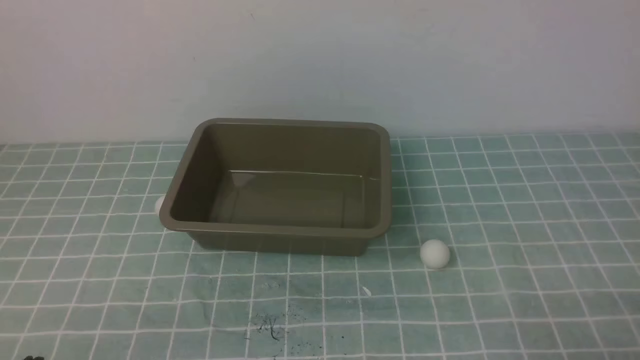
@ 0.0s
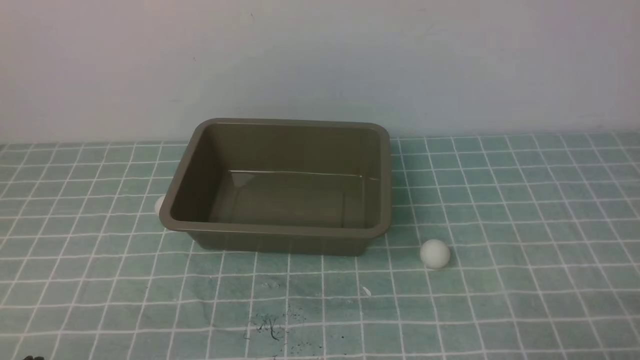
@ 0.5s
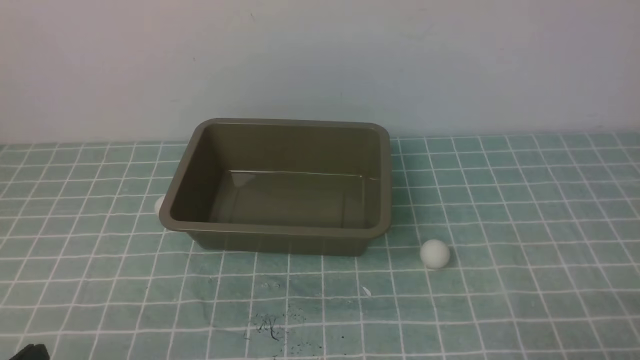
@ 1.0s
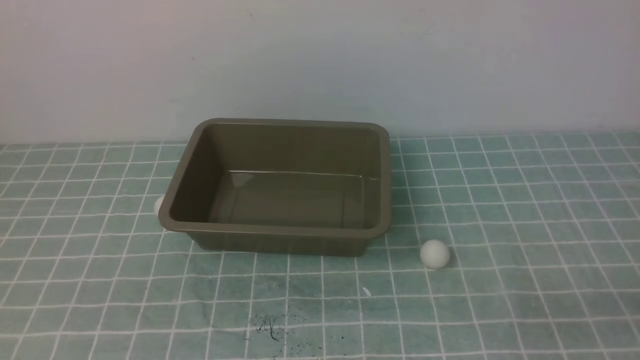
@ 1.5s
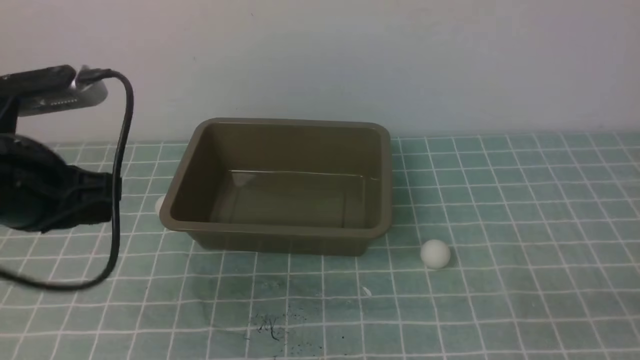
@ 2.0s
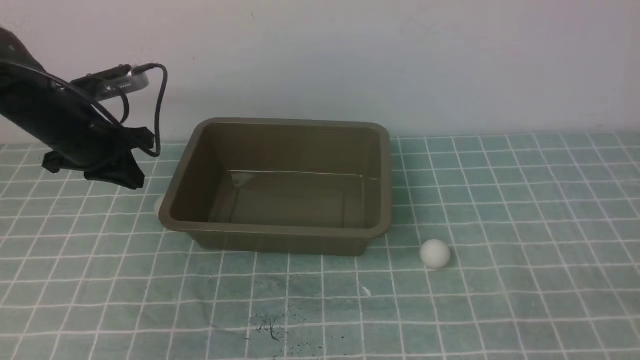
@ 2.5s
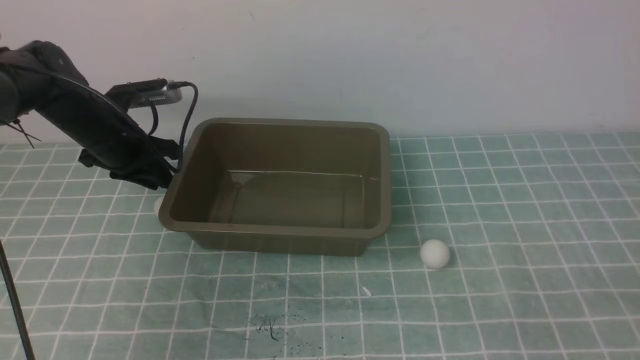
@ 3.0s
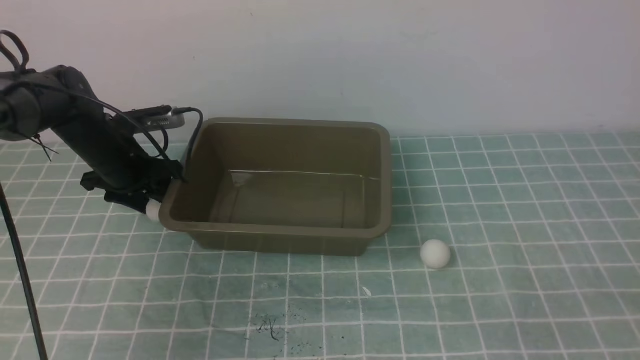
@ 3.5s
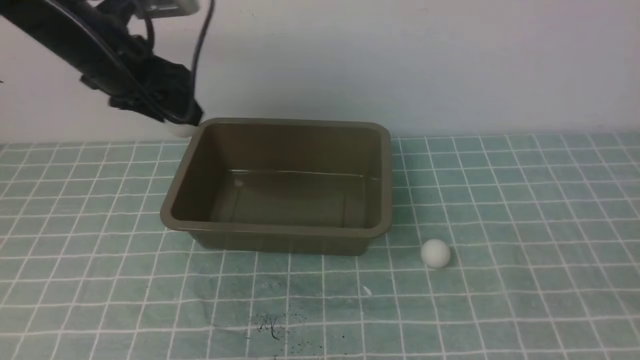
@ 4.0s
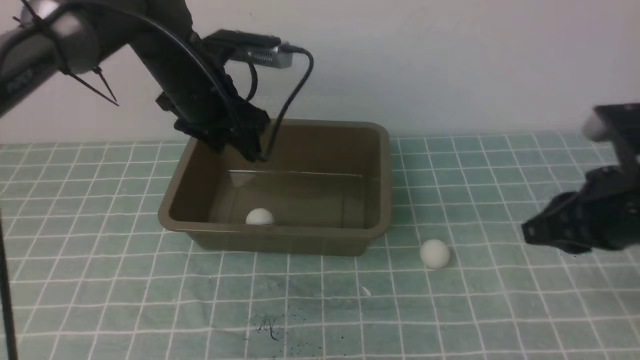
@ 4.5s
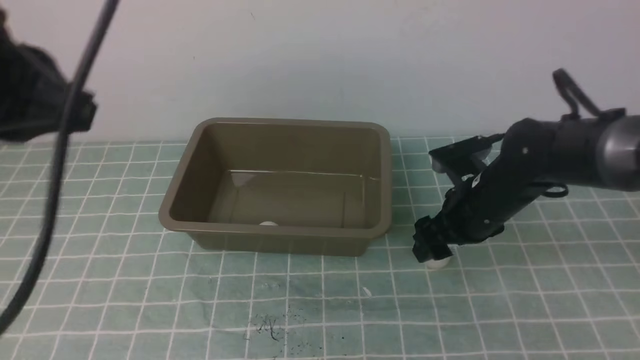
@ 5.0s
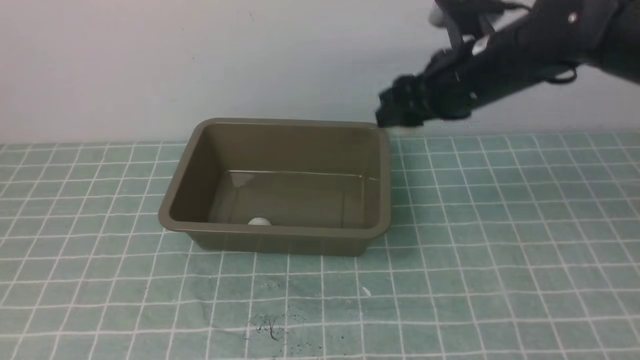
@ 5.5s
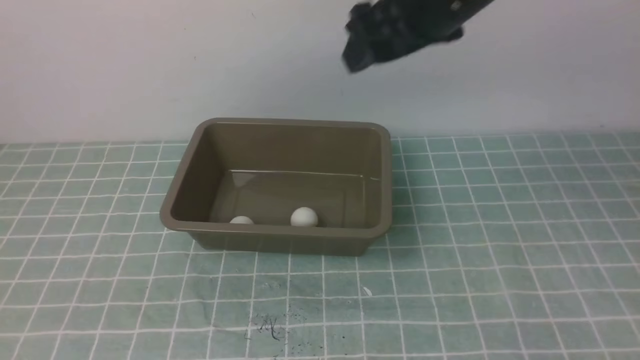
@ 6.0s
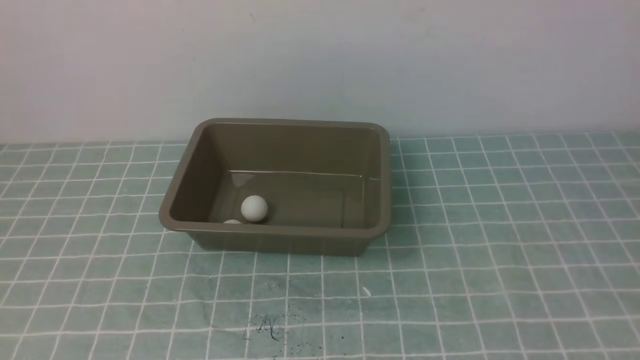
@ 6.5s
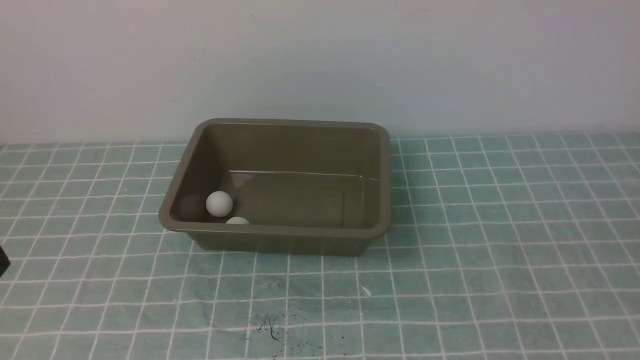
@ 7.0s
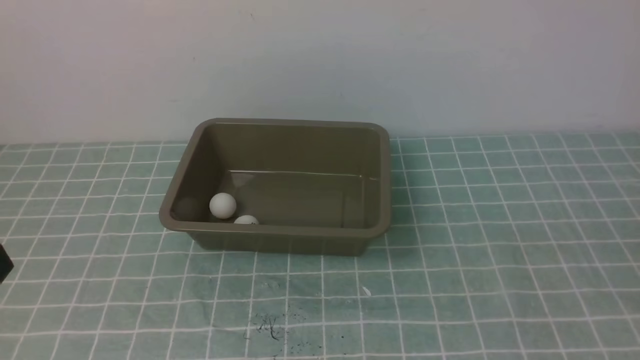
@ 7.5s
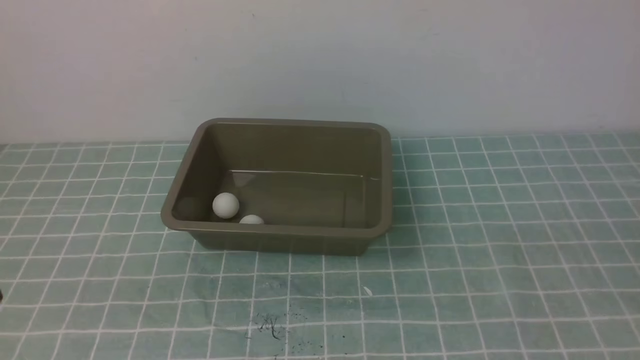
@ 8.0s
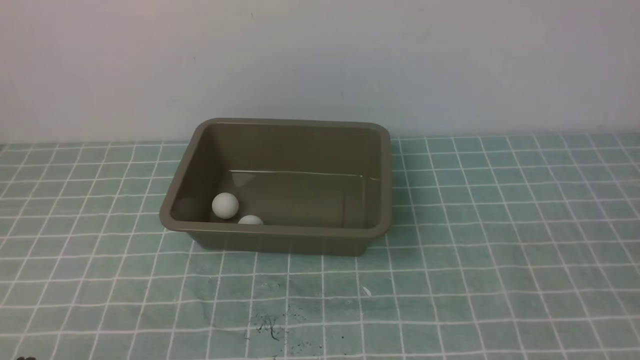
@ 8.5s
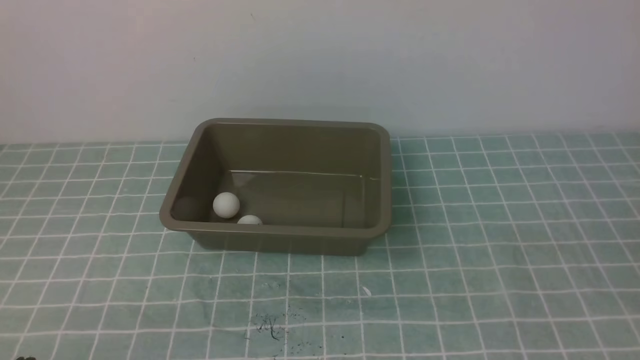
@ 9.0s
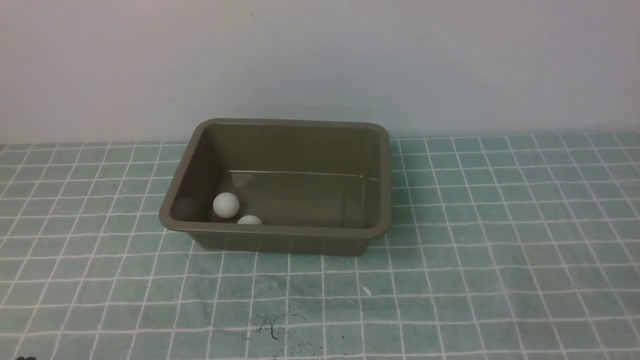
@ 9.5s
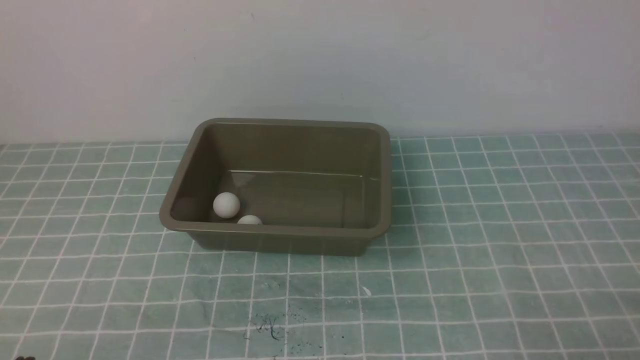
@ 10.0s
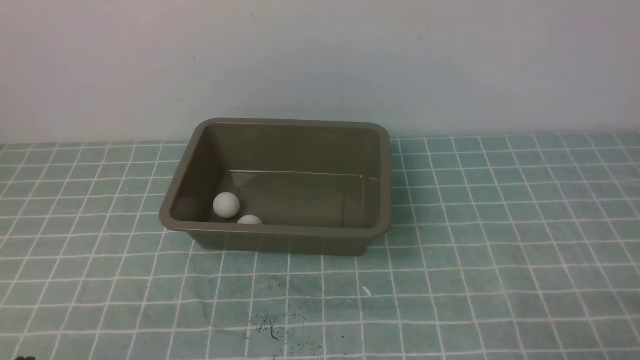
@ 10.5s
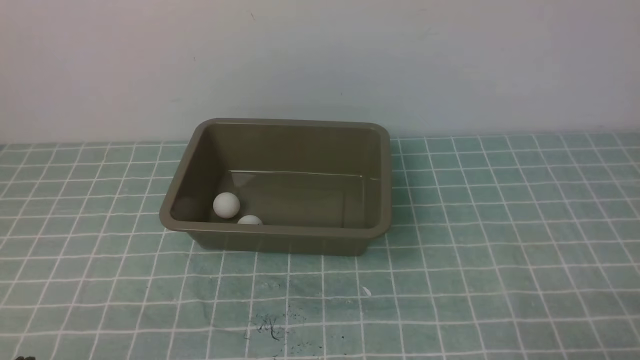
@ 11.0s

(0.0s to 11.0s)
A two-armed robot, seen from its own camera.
Step, 0.0s - 3.5s: use the left arm to clamp the table tennis ball closest to it.
0.0s - 2.0s: The left gripper moves forward and upward, roughly 25 cm; the right gripper travels upward by about 5 cm.
2.0s - 3.5s: The left gripper is displaced forward and downward by some 25 cm, and opens up.
3.5s - 5.5s: The right gripper travels forward and to the left by about 40 cm, and opens, while the left gripper is displaced backward and upward by about 50 cm, and closes its fingers.
5.5s - 7.5s: The left gripper travels downward by about 5 cm; the right gripper is displaced backward and to the right by approximately 40 cm, and closes.

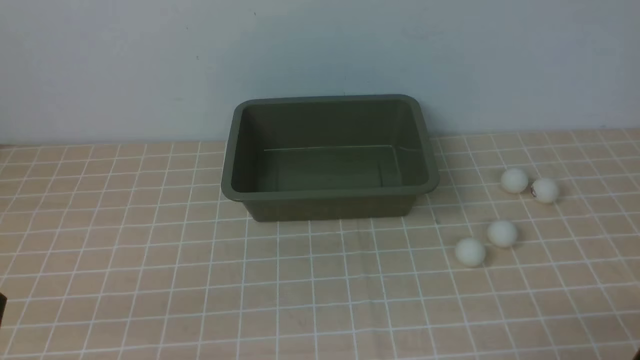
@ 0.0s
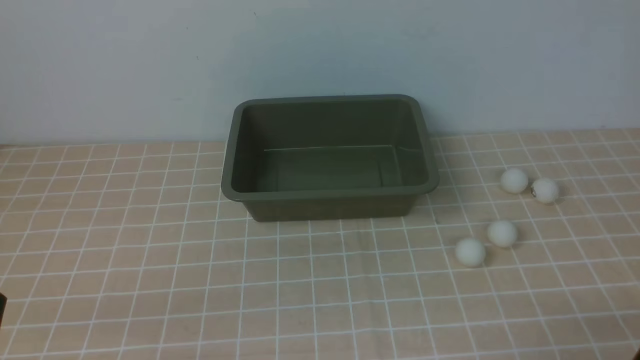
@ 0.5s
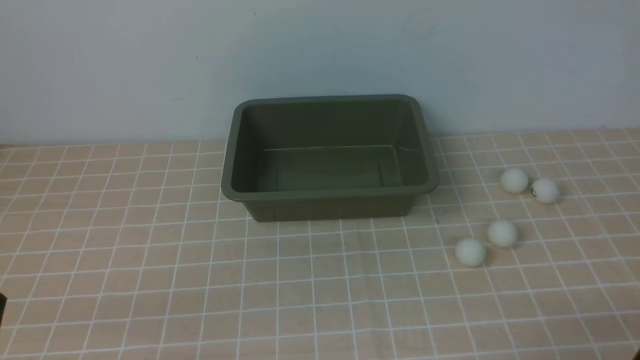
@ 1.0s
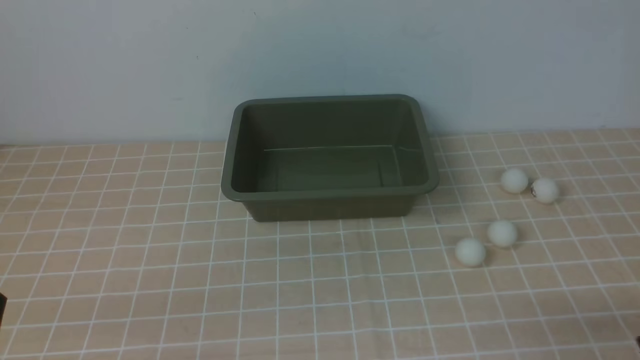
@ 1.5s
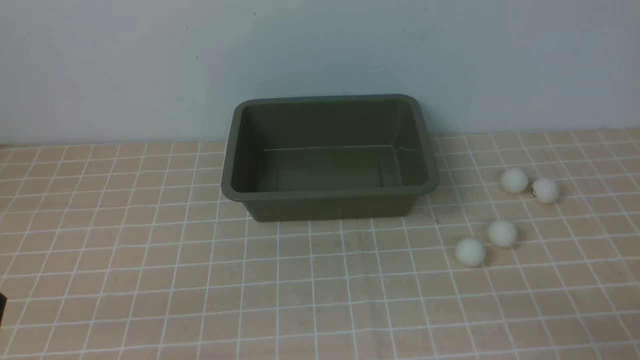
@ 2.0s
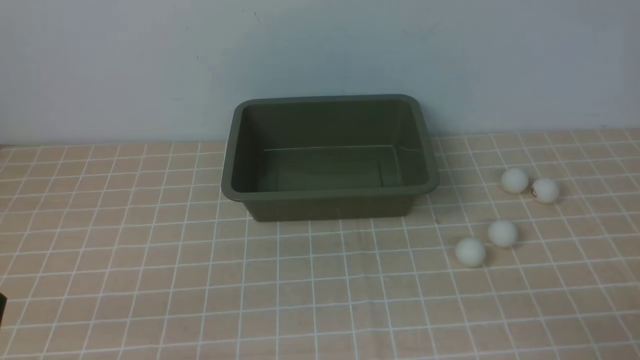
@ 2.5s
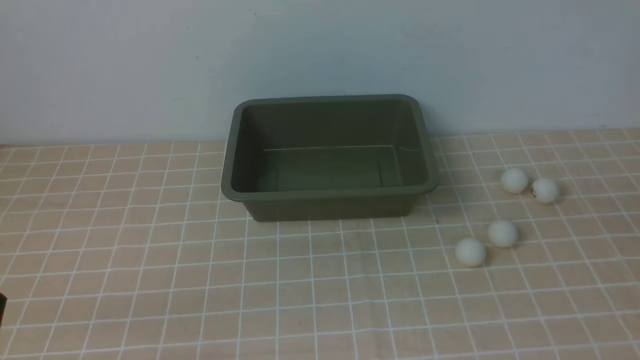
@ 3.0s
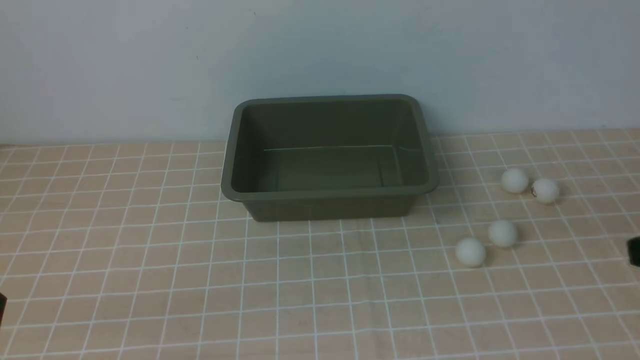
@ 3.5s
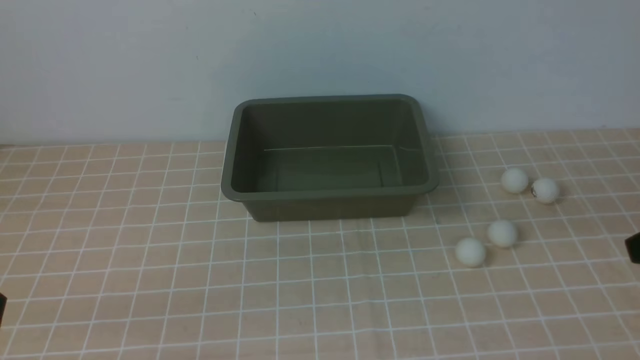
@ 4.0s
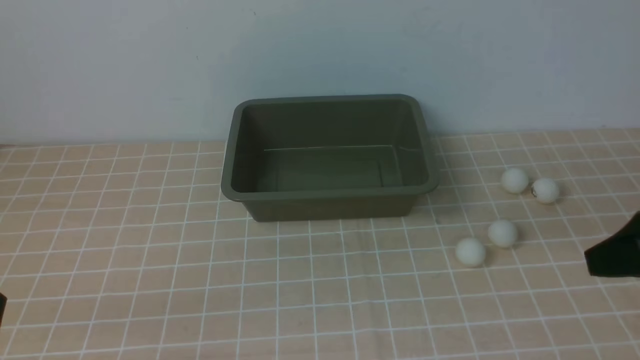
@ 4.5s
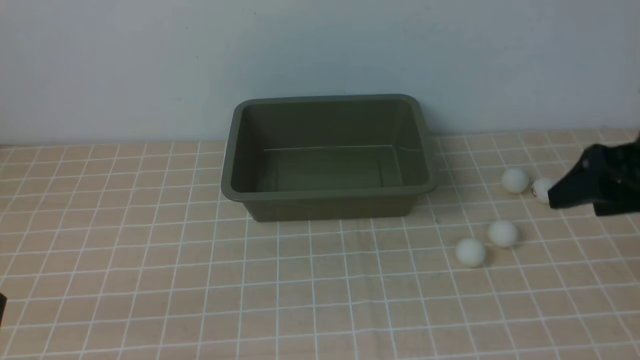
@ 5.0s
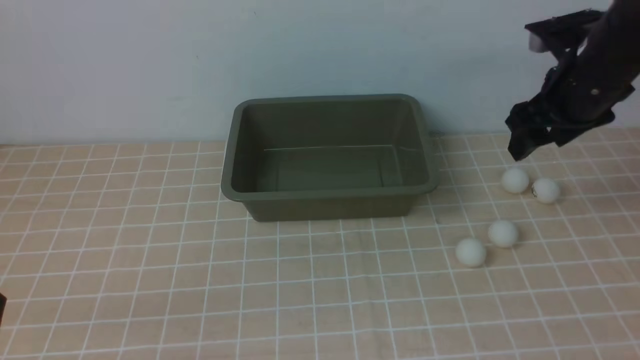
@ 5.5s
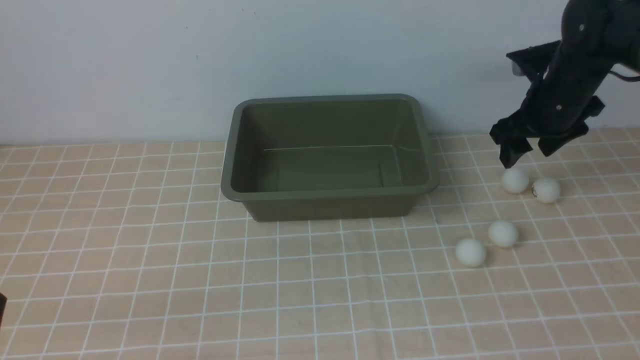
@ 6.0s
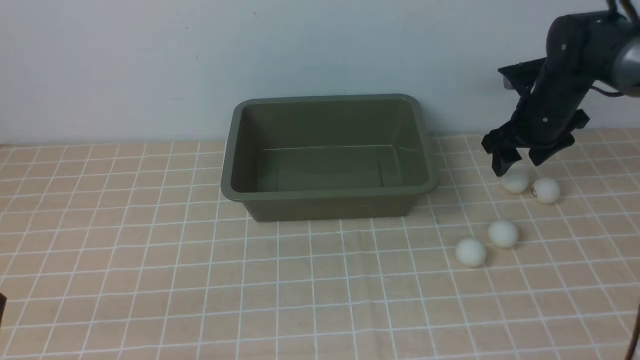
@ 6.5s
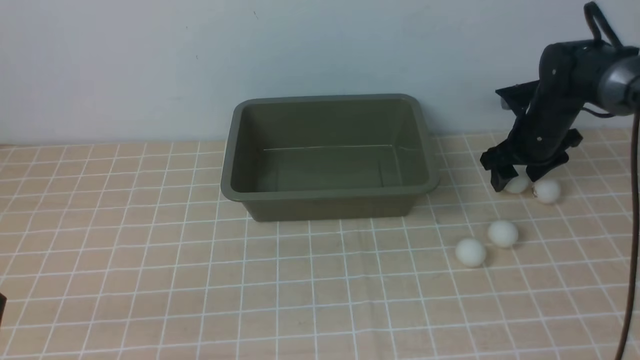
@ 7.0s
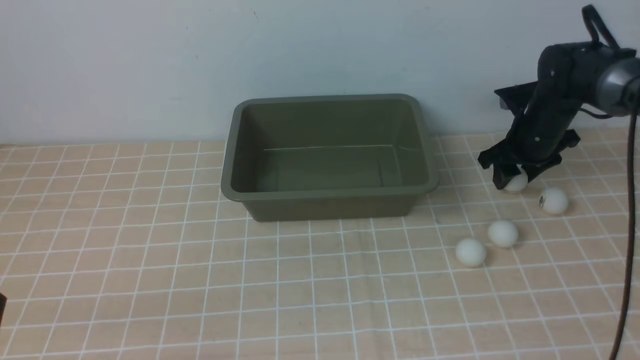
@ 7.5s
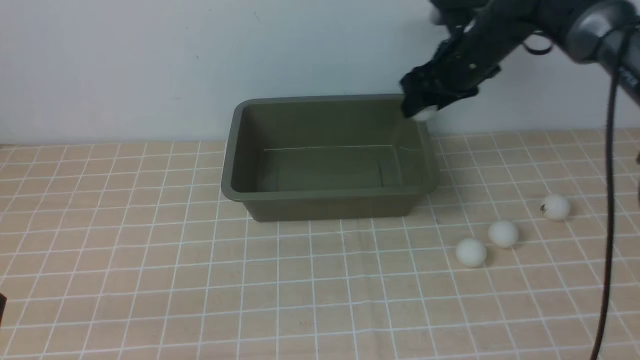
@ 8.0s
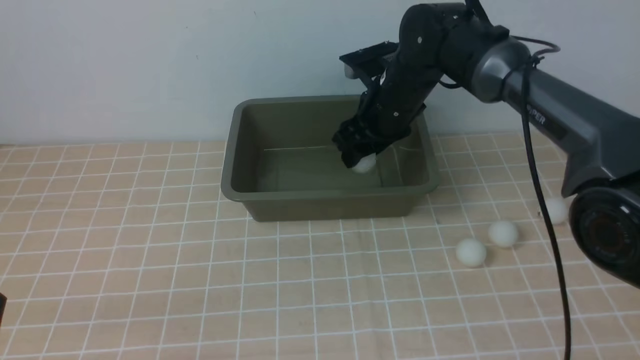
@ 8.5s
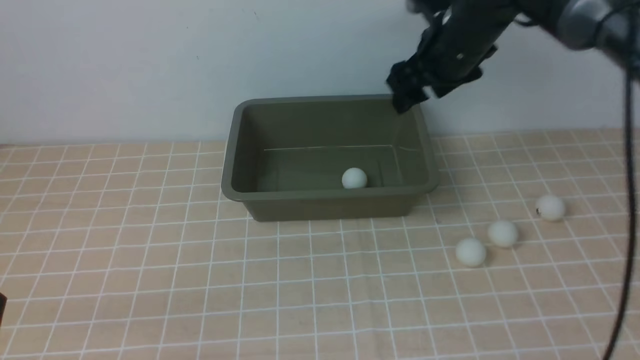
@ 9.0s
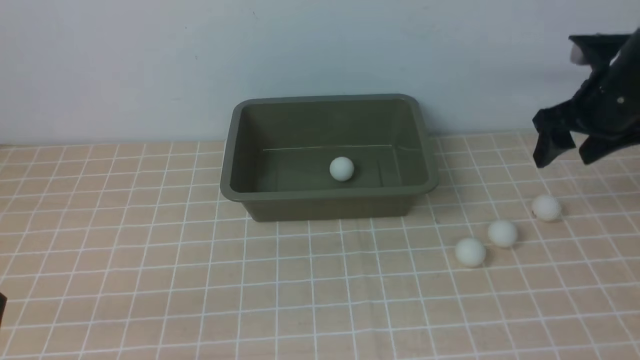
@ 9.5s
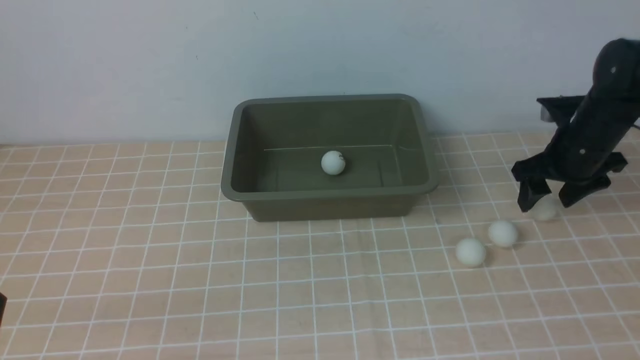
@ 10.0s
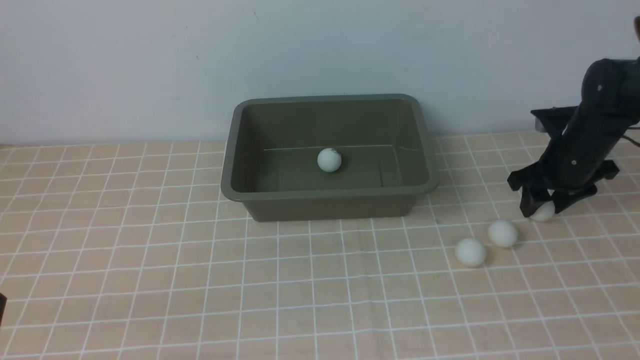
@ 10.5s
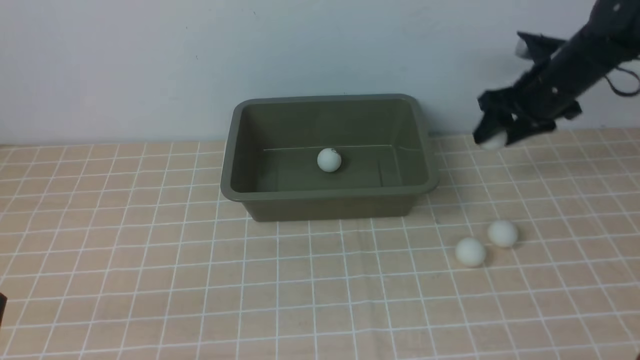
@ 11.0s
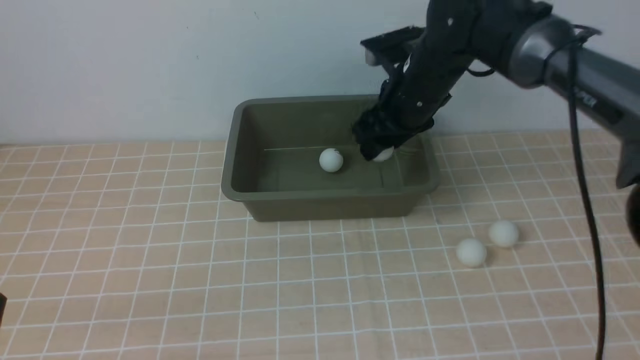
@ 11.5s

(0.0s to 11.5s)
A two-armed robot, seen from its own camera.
Step, 0.0s - 7.5s: use the right arm to clamp the table tennis ball closest to it.
Step, 8.0s - 9.0s: use the right arm to put the table tennis ball into the box.
Step, 9.5s - 10.5s: use the right arm to clamp the table tennis ball closest to it.
4.0s - 6.0s: The right gripper travels forward by approximately 25 cm, and opens its fingers.
6.0s - 7.5s: The right gripper shifts about 5 cm downward.
7.5s - 9.5s: The right gripper goes about 15 cm upward and backward, and goes to the left and returns, about 20 cm each way.
9.5s - 11.5s: The right gripper heads to the left, covering some 20 cm.
